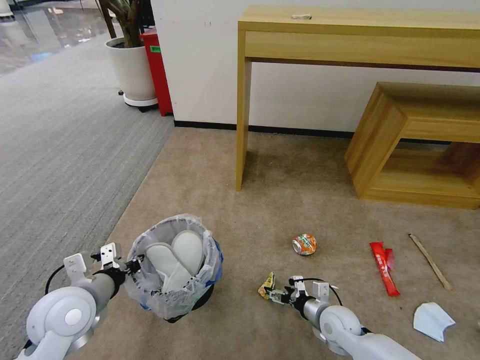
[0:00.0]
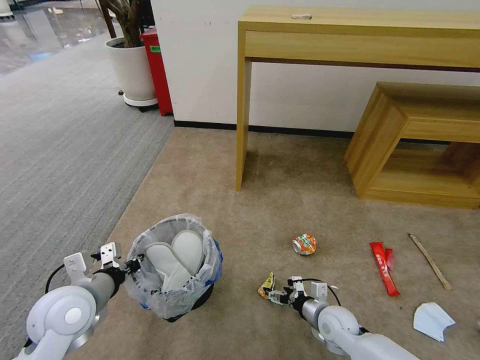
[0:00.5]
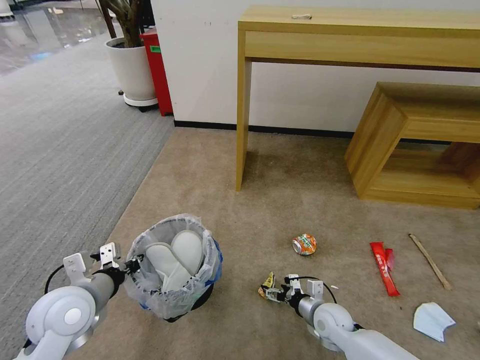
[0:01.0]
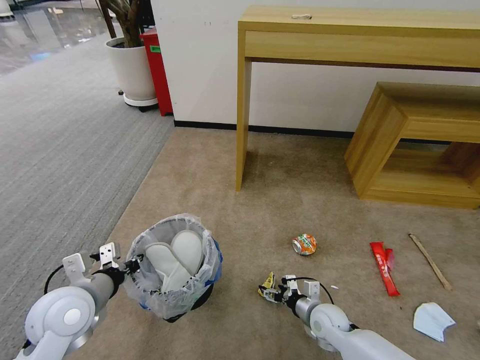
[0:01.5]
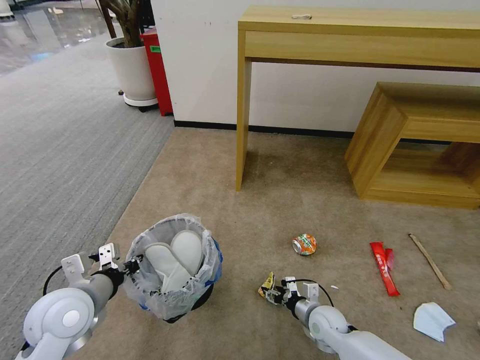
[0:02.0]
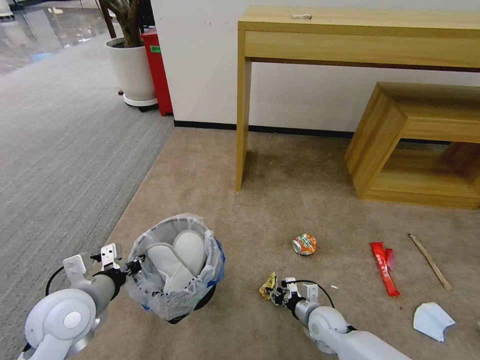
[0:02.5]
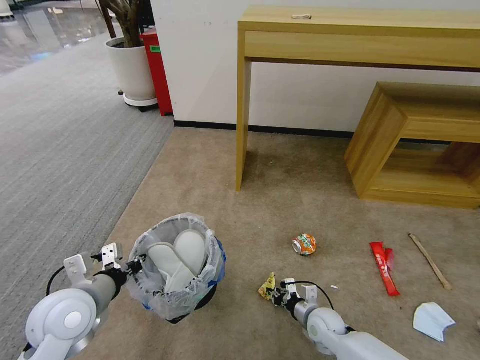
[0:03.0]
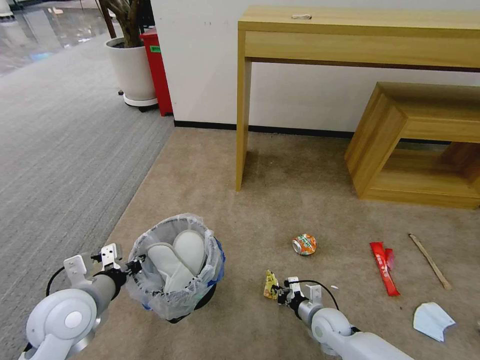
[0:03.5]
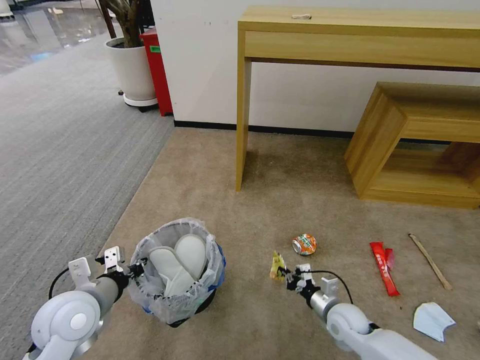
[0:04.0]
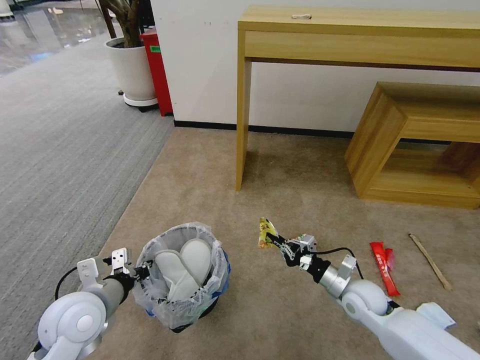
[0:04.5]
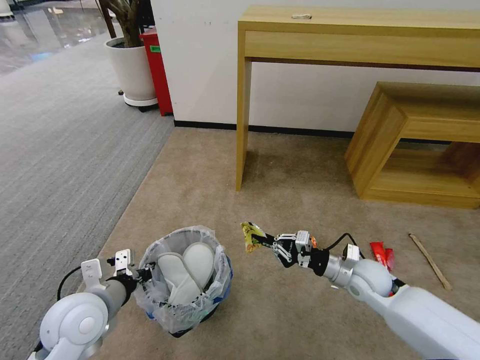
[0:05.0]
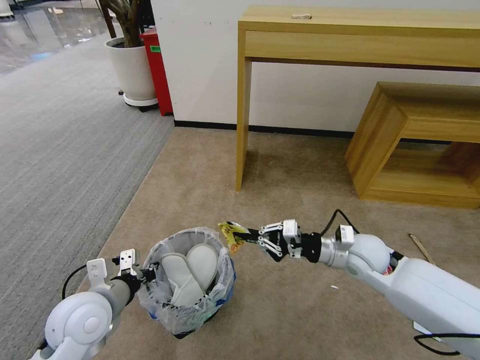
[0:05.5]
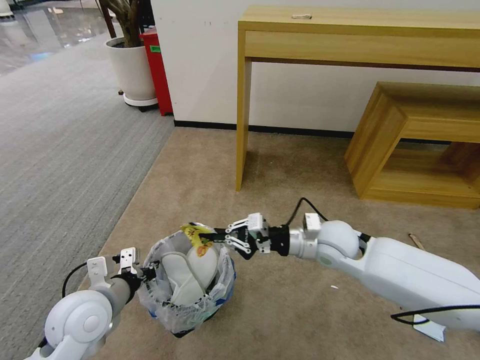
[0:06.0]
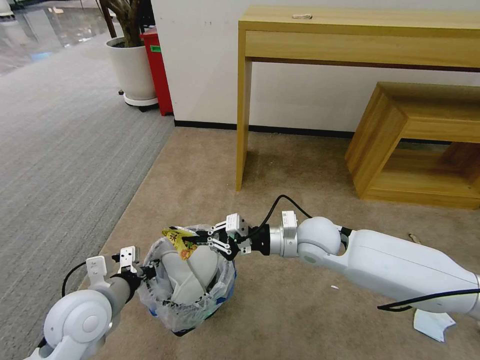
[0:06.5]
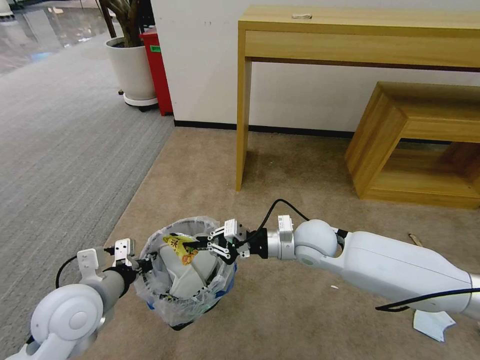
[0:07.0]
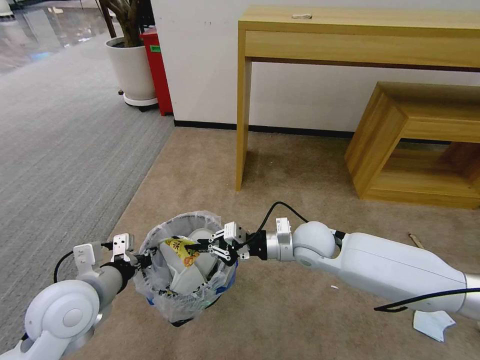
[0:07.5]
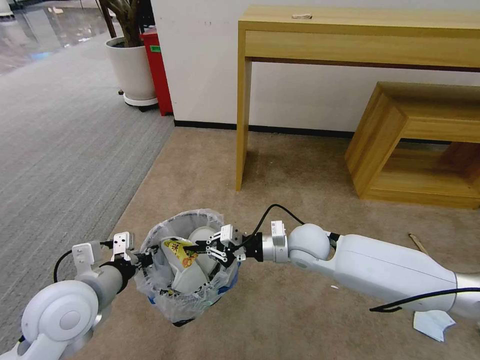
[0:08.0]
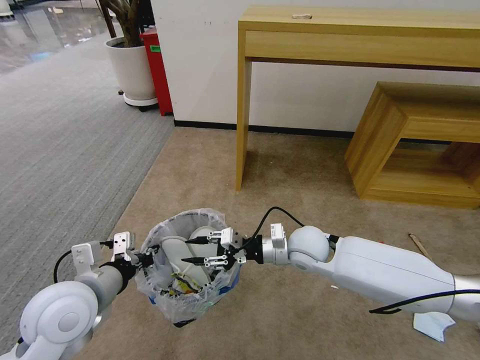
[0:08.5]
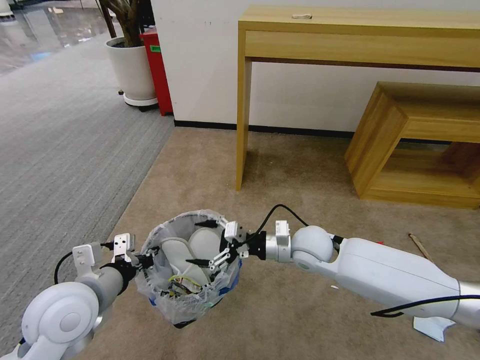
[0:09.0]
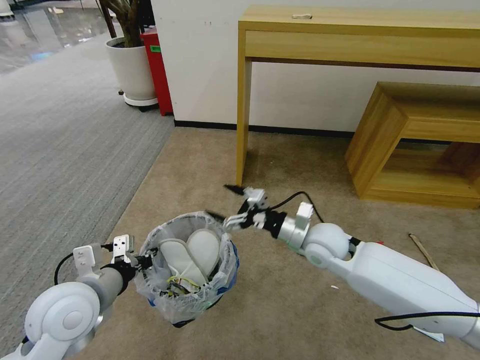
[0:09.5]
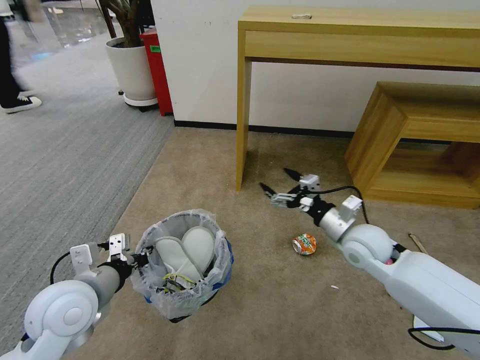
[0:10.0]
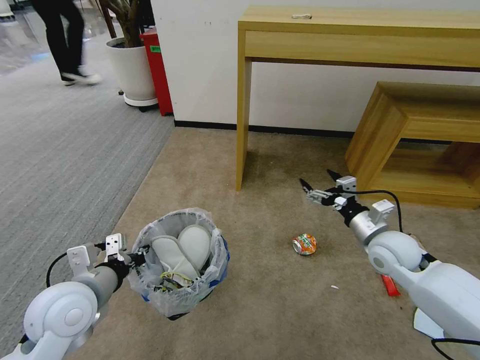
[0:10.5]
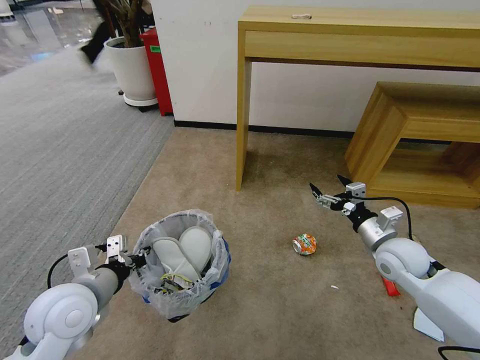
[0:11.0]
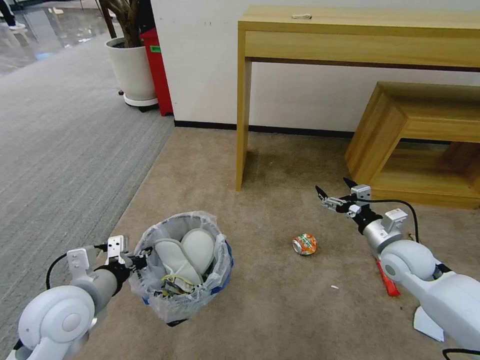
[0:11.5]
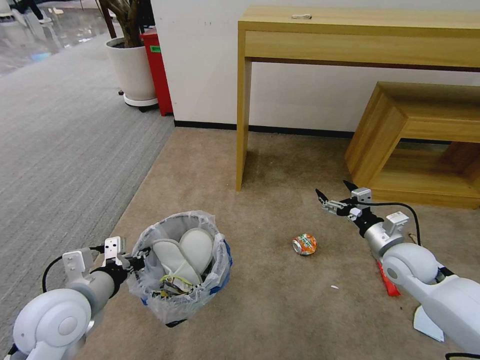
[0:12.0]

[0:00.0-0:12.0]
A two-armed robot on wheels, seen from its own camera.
Task of the whole recording: Pick up the trash bin and place the garbage on the floor into it.
0:00.0 to 0:02.0: There are only small adjustments of the grippers.
0:02.0 to 0:04.0: The right gripper shifts by some 5 cm, and closes its fingers.
0:04.0 to 0:06.0: The right gripper is displaced upward and forward by roughly 25 cm.
0:06.0 to 0:08.0: The left gripper goes approximately 5 cm upward, while the right gripper goes about 5 cm to the left.
0:08.0 to 0:10.0: The right gripper shifts roughly 10 cm to the right, and opens its fingers.
0:10.0 to 0:12.0: The right gripper travels to the right by about 10 cm.

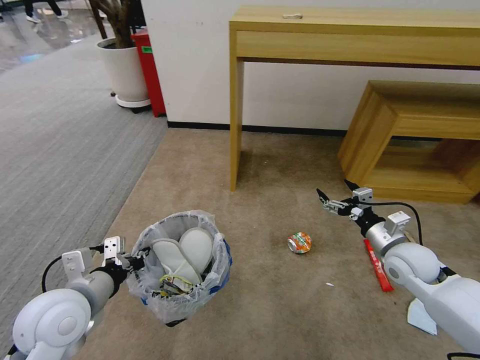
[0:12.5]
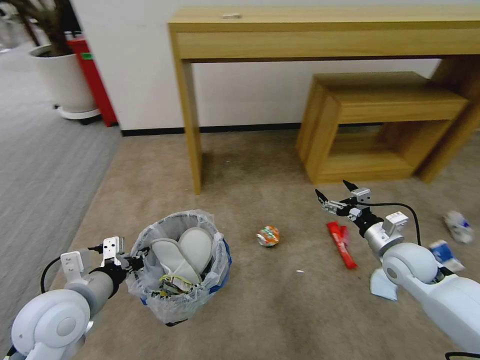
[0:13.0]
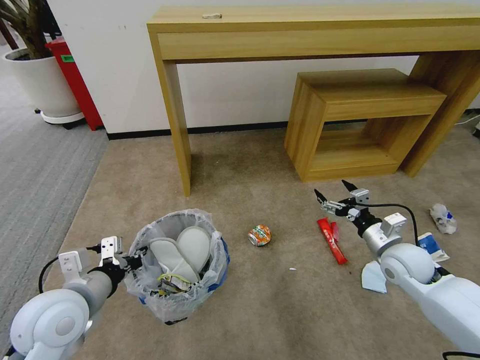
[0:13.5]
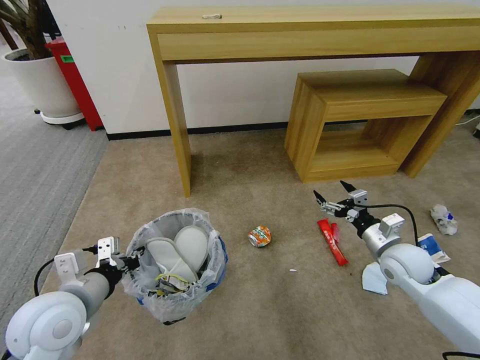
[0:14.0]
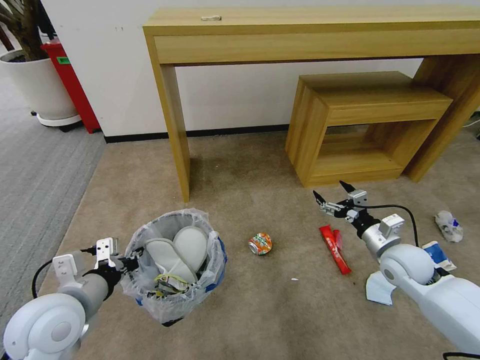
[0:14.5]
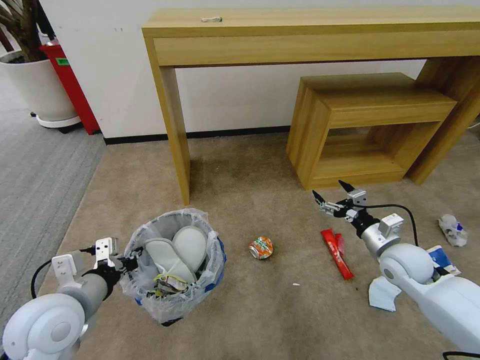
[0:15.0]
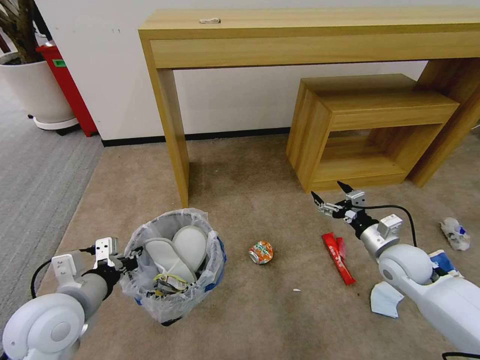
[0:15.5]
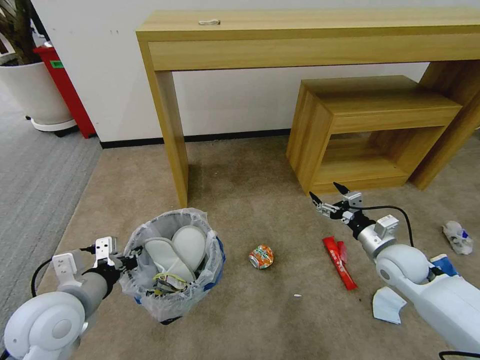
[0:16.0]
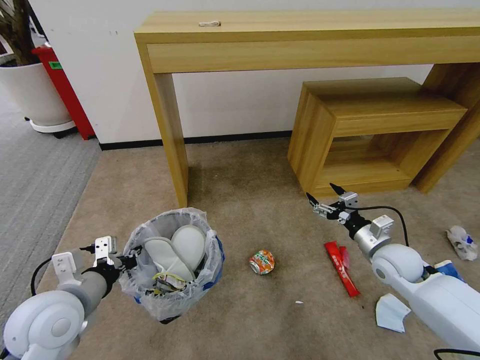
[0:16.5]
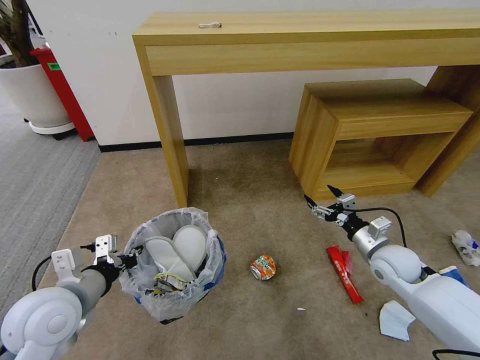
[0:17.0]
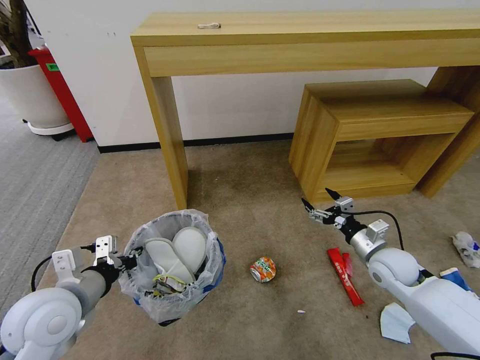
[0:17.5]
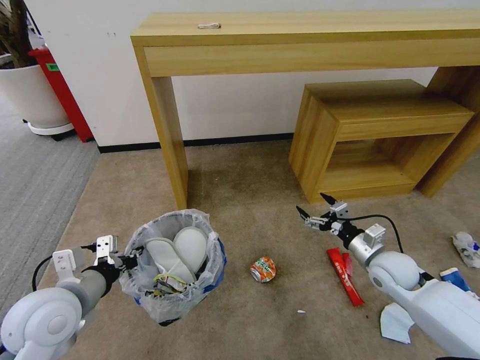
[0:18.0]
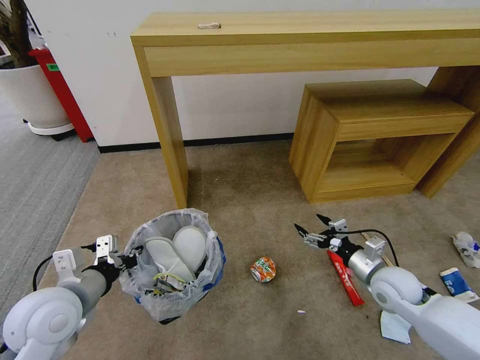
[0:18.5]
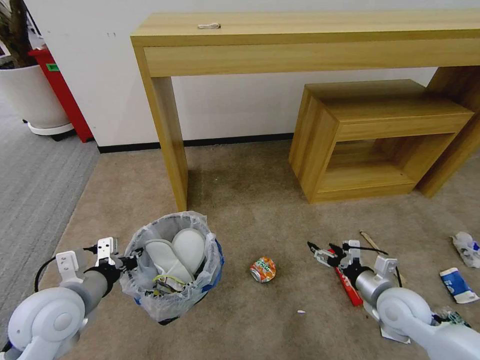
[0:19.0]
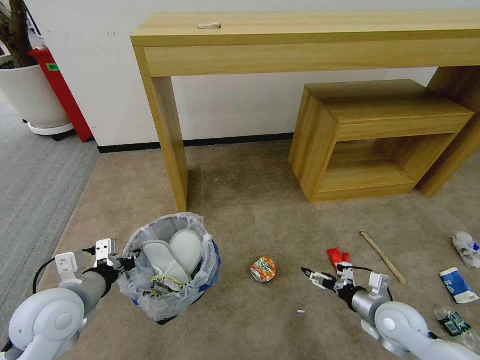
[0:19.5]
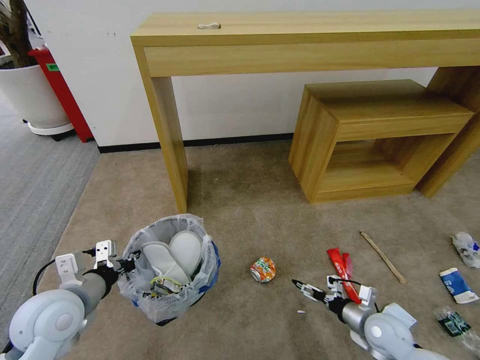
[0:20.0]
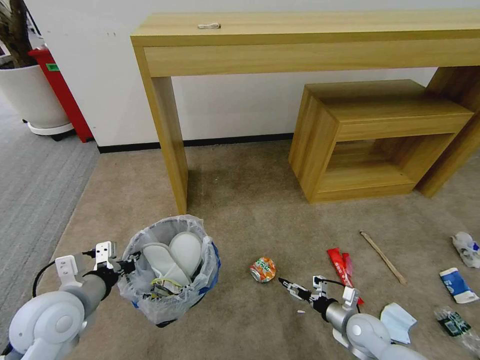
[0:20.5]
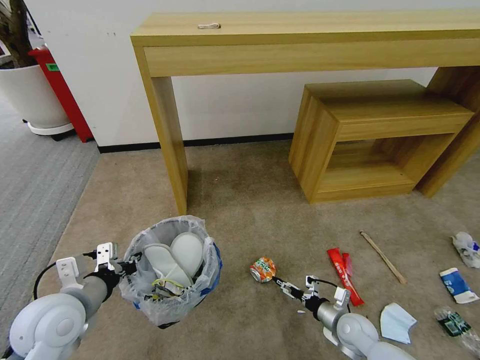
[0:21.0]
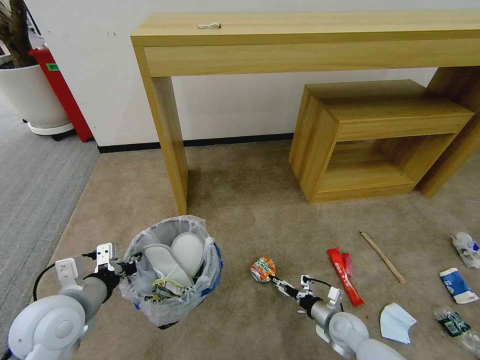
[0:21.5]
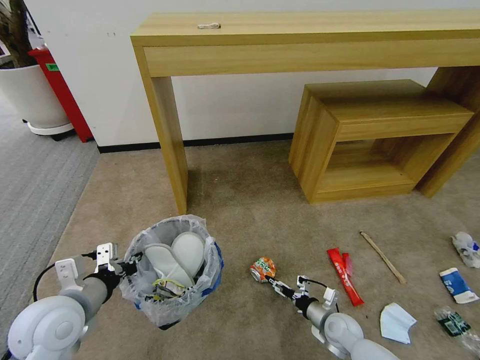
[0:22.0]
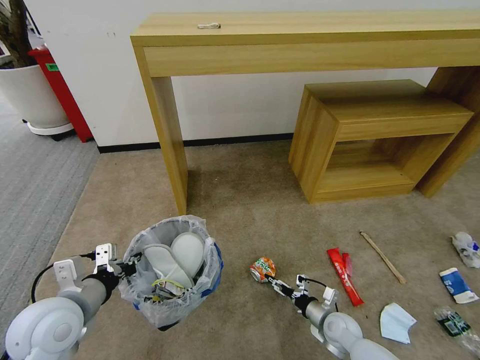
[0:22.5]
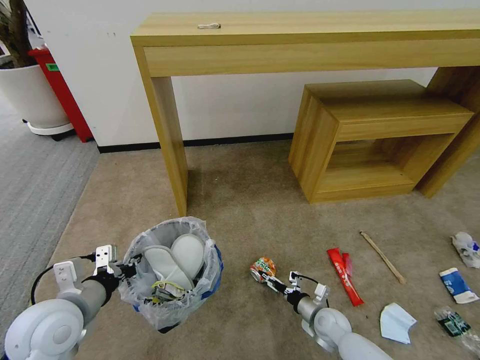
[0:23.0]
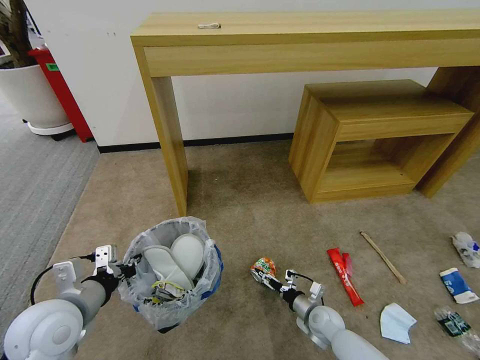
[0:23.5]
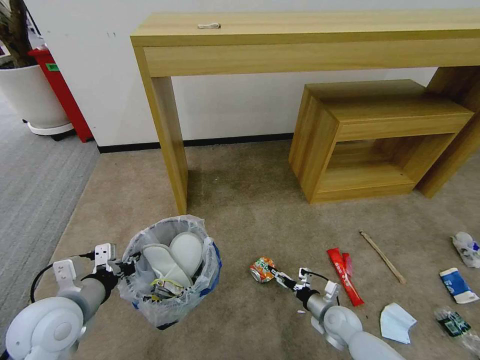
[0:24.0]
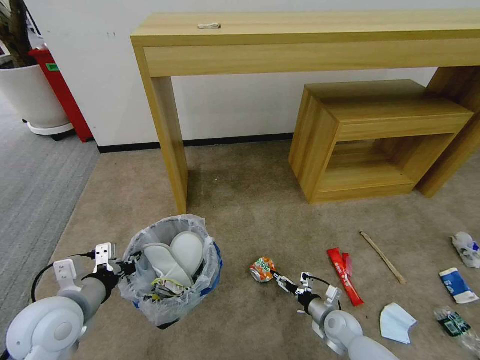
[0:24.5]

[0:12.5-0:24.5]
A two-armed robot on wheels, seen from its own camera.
Task of the whole recording: Pick up the trash bin and place the garbage on the floor into it.
0:16.5 to 0:18.5: The right gripper heads backward, covering roughly 5 cm.
0:18.5 to 0:20.5: The right gripper heads downward, covering some 15 cm.
0:20.5 to 0:22.5: The right gripper ends up approximately 5 cm from where it was.
0:22.5 to 0:24.5: The grippers move only a little.

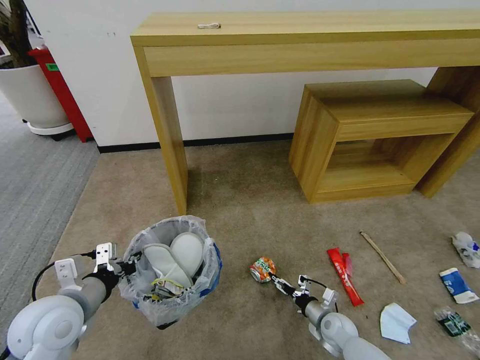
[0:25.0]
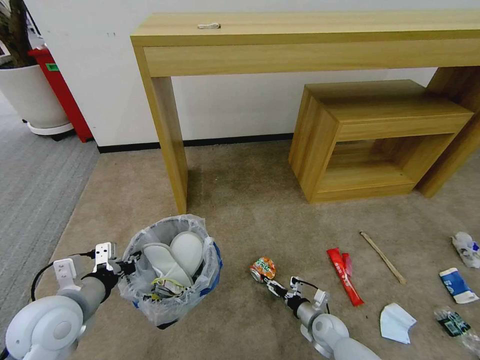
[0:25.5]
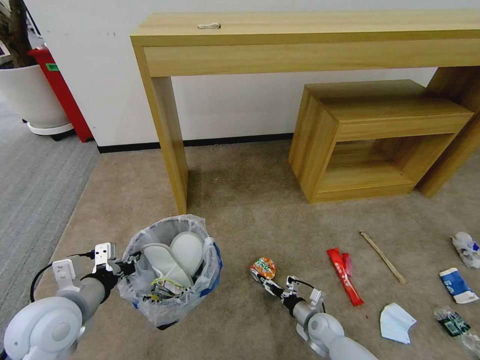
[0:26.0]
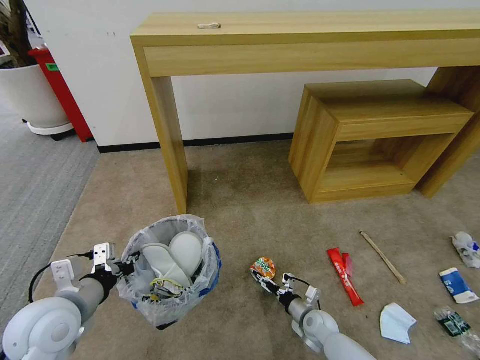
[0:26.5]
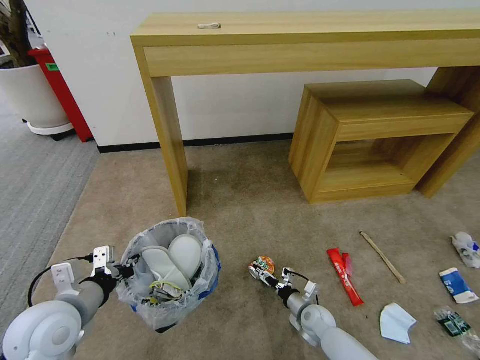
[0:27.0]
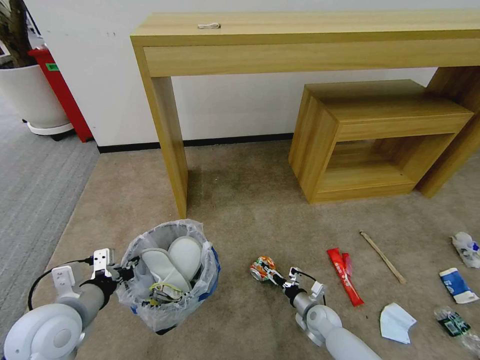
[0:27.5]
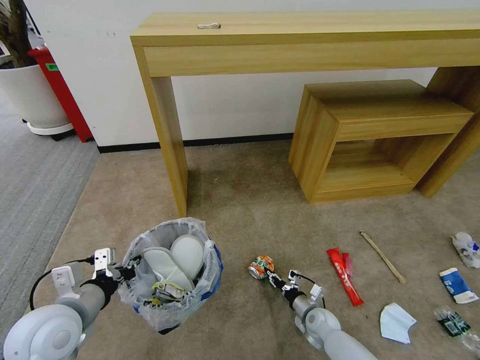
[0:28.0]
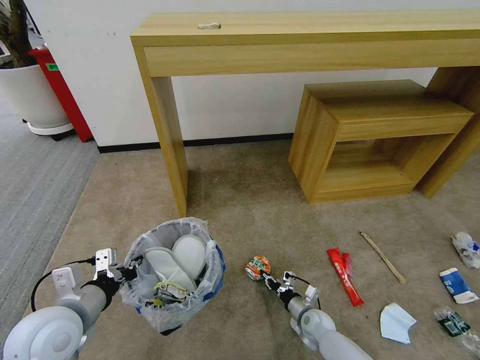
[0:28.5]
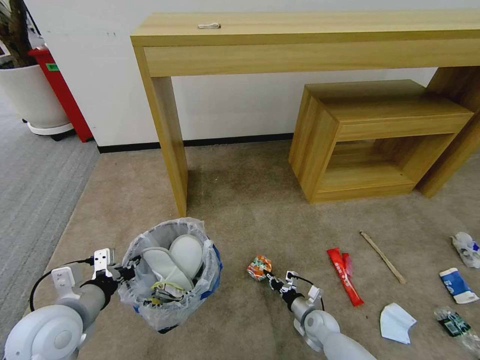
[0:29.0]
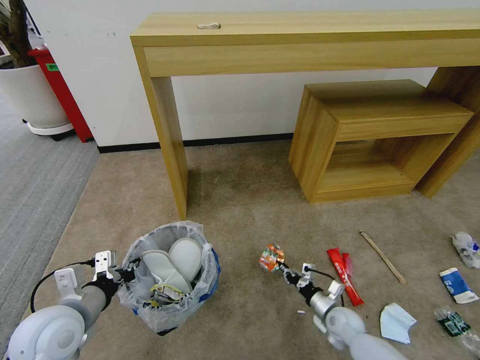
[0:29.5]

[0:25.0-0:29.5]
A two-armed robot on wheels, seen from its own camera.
Task of the whole recording: Pick up the trash bin and place the garbage on the floor into it.
0:25.0 to 0:27.0: The right gripper ends up some 5 cm from where it was.
0:27.0 to 0:29.5: The right gripper moves to the right, approximately 5 cm, and closes.
